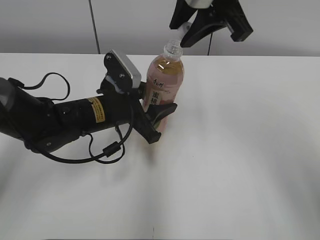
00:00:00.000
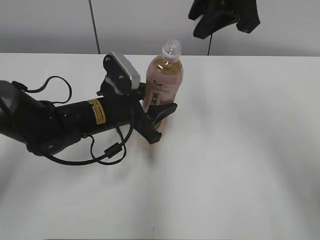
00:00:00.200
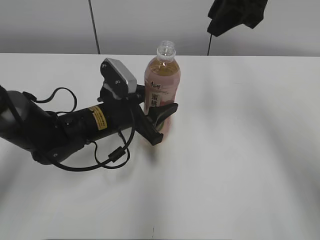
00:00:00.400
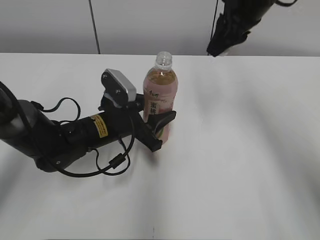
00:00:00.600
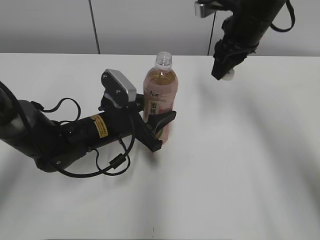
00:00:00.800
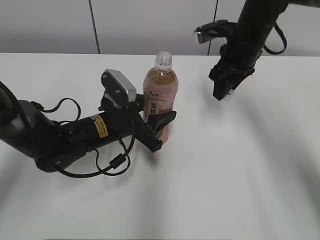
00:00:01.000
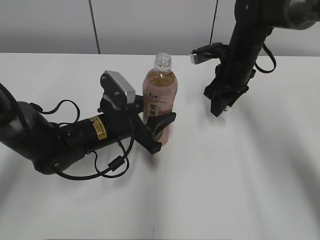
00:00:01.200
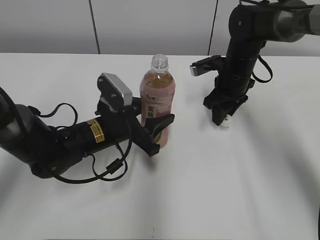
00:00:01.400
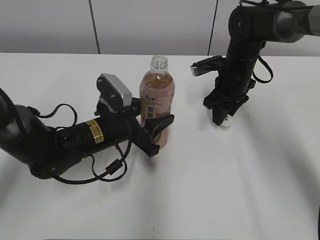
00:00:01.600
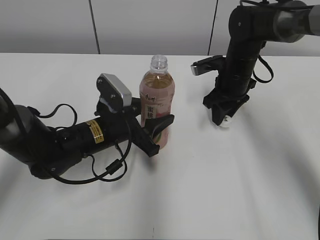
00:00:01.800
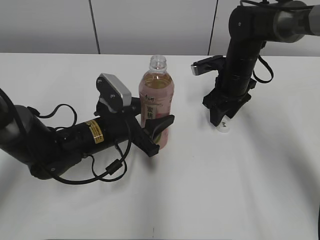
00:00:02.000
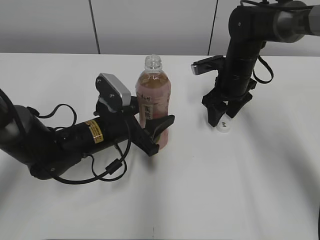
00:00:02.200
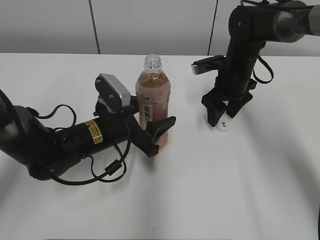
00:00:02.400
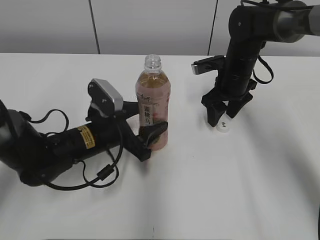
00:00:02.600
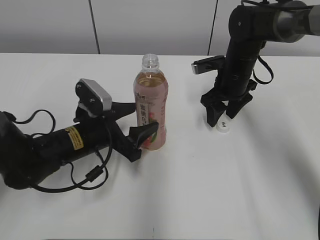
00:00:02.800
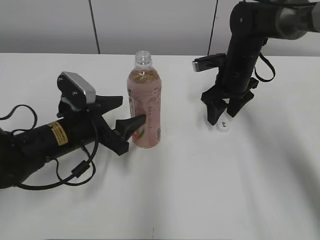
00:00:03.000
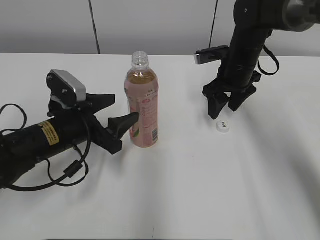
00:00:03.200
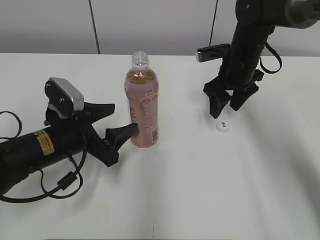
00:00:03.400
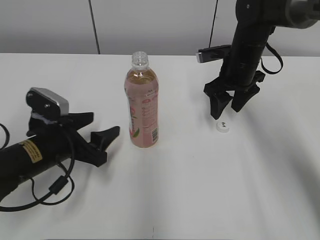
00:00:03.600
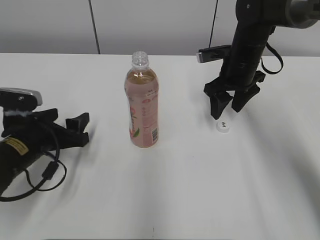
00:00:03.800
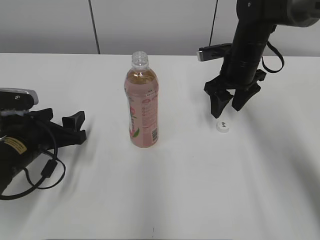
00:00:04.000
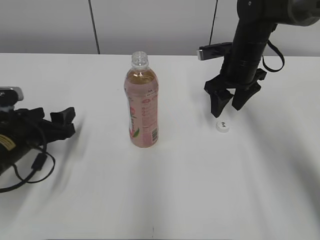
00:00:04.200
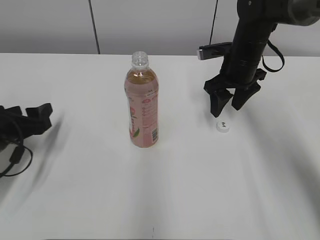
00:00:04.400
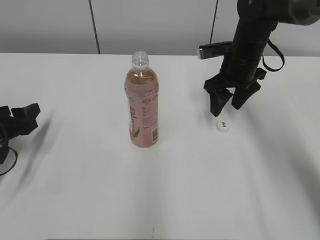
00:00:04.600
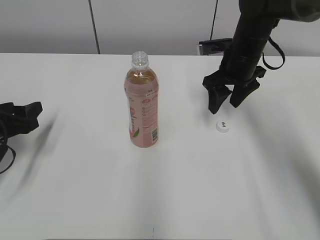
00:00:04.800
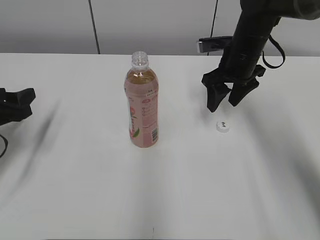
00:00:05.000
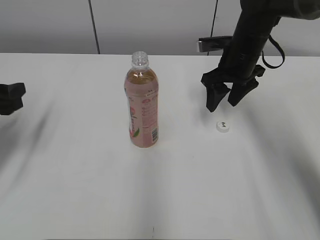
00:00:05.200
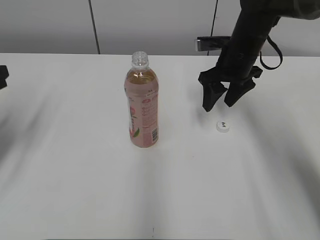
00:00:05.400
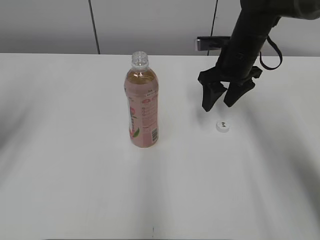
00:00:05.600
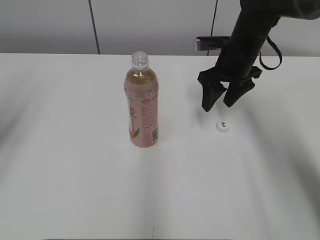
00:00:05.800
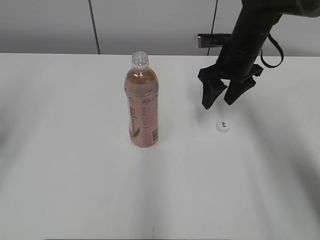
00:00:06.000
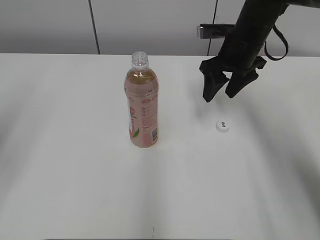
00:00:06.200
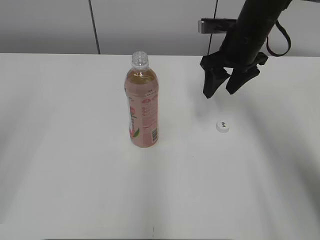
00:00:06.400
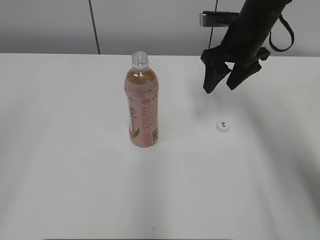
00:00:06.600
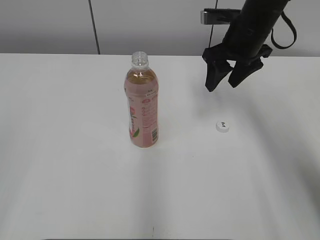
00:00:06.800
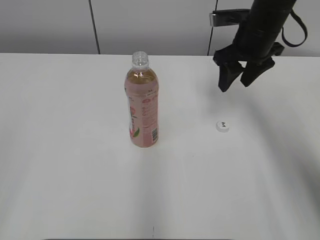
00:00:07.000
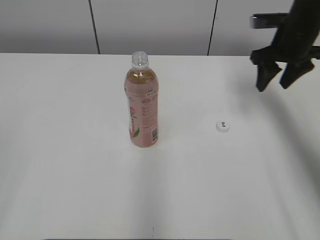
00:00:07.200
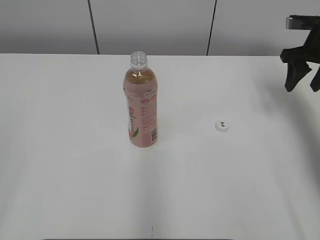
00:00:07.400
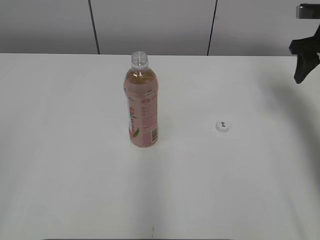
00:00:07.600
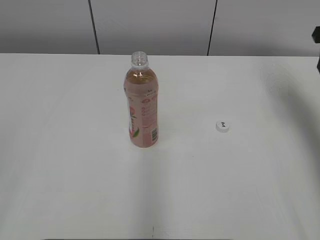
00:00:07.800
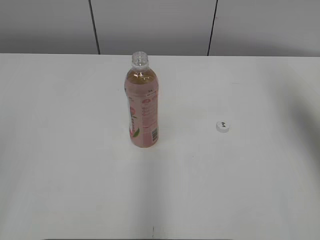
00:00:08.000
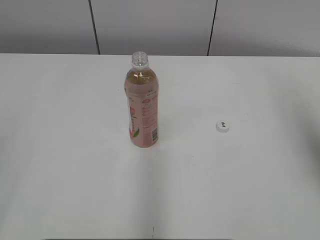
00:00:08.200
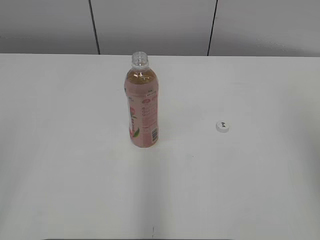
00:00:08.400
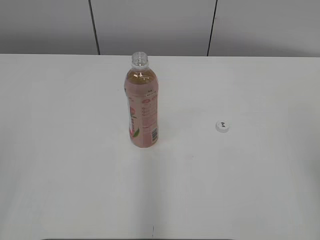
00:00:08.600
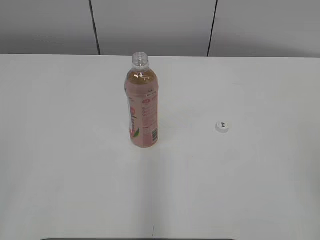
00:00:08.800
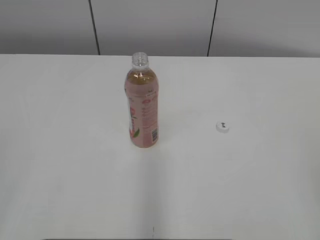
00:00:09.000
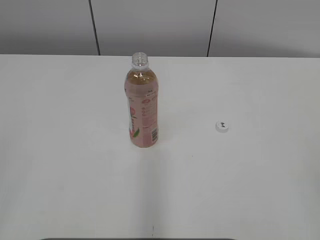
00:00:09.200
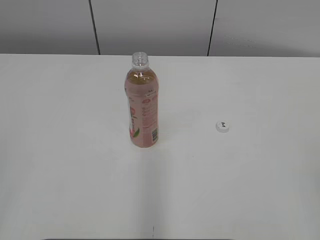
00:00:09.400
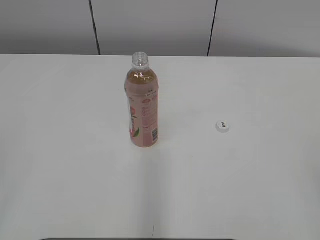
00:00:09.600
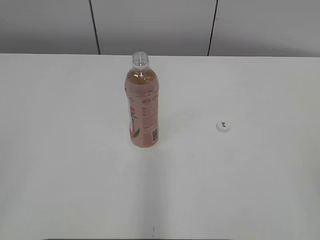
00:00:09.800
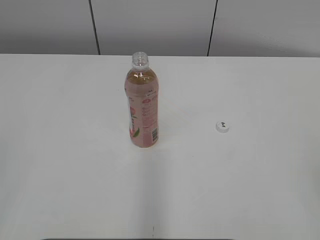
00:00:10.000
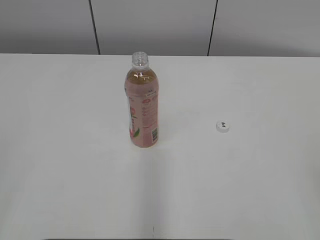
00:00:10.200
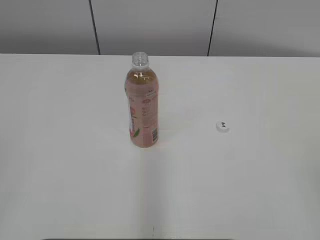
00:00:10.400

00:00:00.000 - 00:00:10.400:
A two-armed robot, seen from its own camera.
Step, 00:00:00.000 - 00:00:01.800: Place the bottle cap on the right.
Step, 00:00:02.000 - 00:00:03.000: Place the Peach Oolong Tea with the left hand.
00:00:00.000 - 00:00:01.400: The right gripper travels downward and forward by roughly 25 cm.
00:00:01.400 - 00:00:03.000: The right gripper opens. The left gripper travels to the left by some 5 cm, and opens up.
00:00:03.000 - 00:00:04.400: The left gripper goes roughly 15 cm to the left.
00:00:04.400 - 00:00:06.000: The left gripper is displaced upward by approximately 20 cm.
00:00:06.000 - 00:00:07.400: The left gripper heads backward, covering about 20 cm. The right gripper goes some 15 cm to the right.
00:00:07.400 - 00:00:09.000: The right gripper heads backward, covering roughly 40 cm.

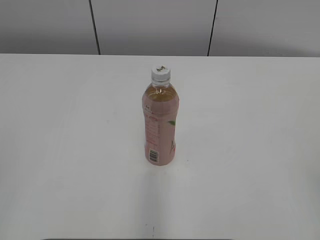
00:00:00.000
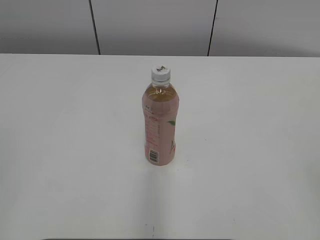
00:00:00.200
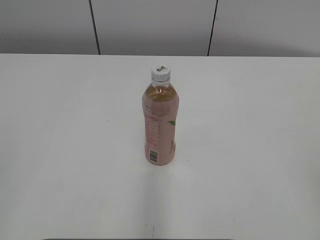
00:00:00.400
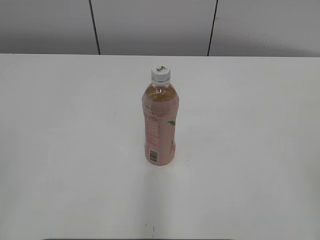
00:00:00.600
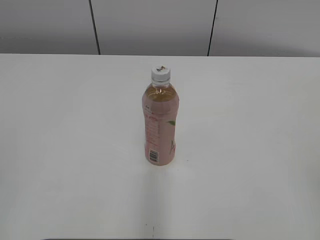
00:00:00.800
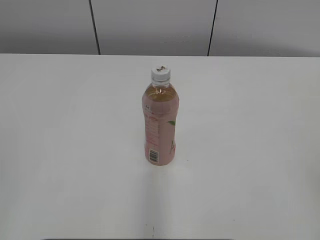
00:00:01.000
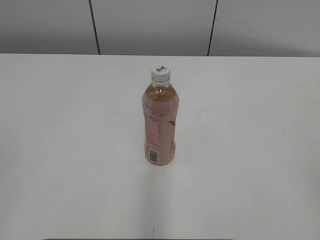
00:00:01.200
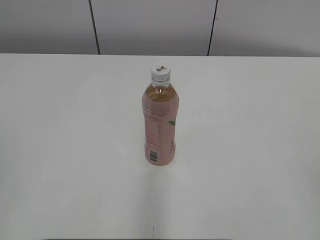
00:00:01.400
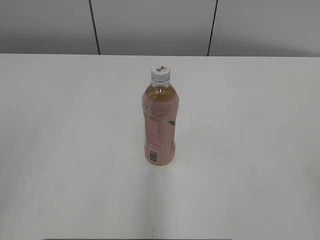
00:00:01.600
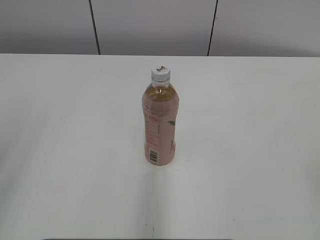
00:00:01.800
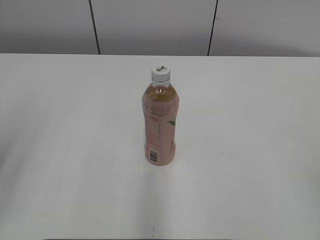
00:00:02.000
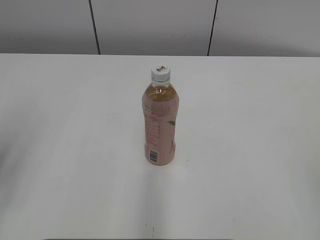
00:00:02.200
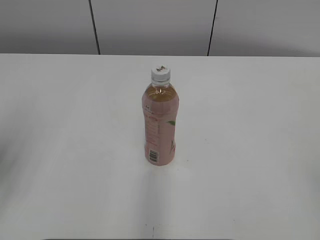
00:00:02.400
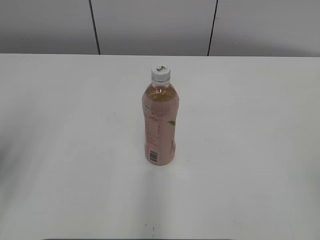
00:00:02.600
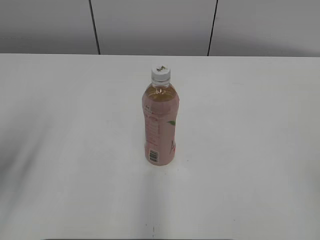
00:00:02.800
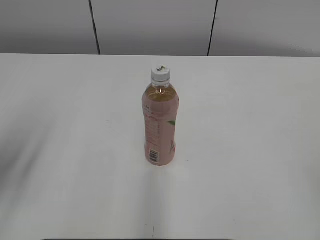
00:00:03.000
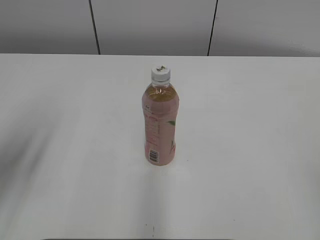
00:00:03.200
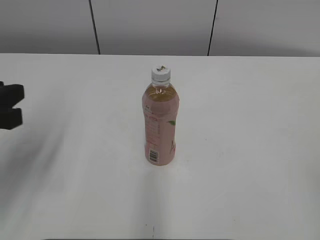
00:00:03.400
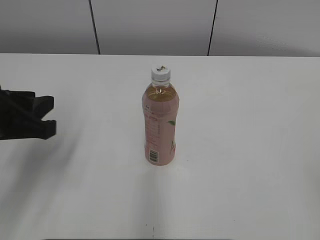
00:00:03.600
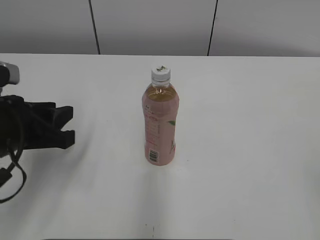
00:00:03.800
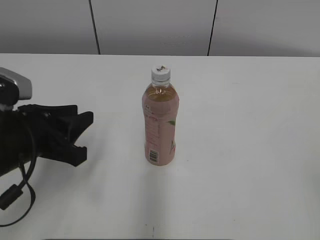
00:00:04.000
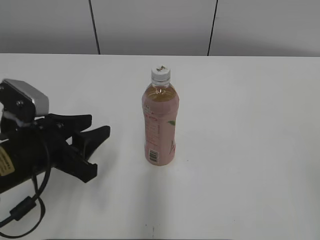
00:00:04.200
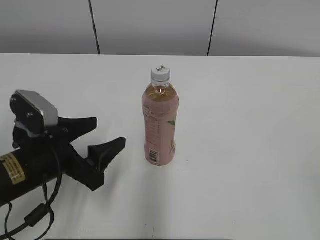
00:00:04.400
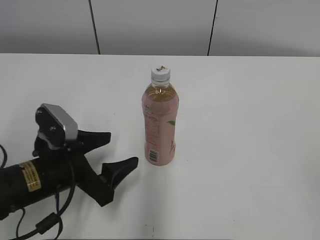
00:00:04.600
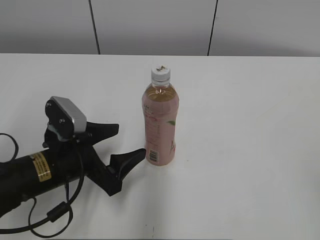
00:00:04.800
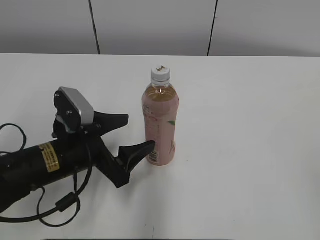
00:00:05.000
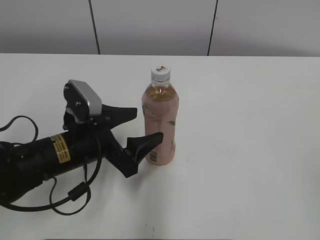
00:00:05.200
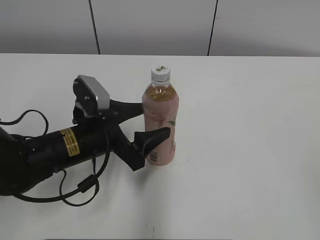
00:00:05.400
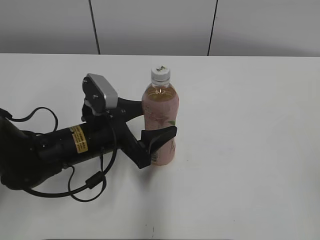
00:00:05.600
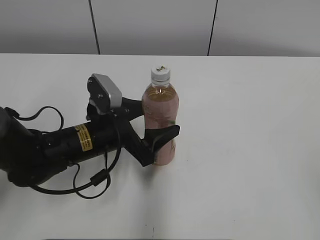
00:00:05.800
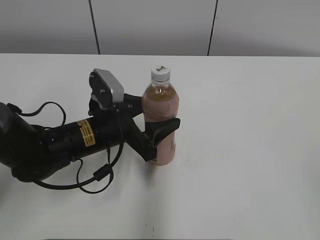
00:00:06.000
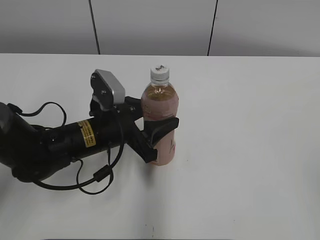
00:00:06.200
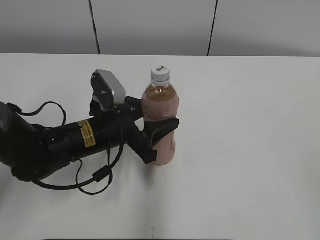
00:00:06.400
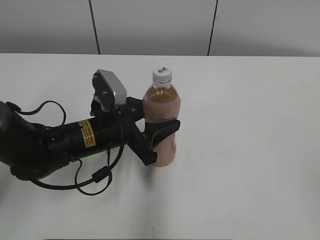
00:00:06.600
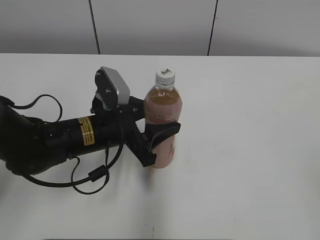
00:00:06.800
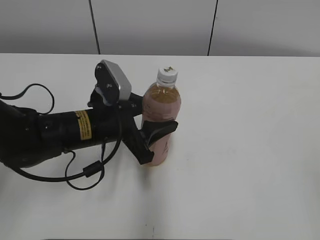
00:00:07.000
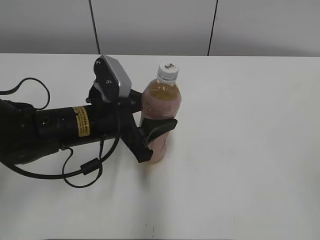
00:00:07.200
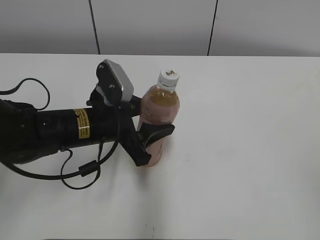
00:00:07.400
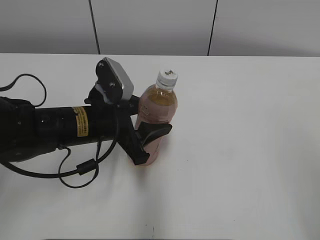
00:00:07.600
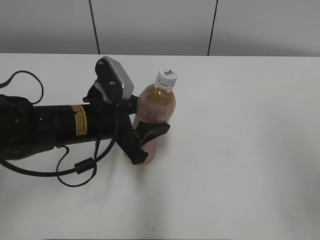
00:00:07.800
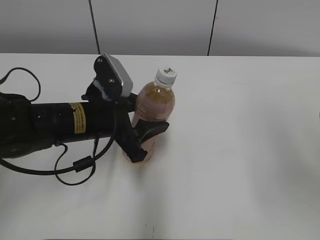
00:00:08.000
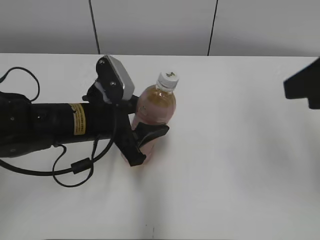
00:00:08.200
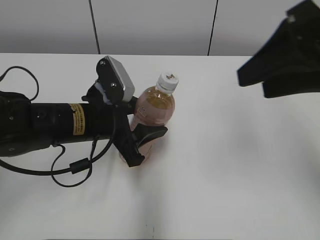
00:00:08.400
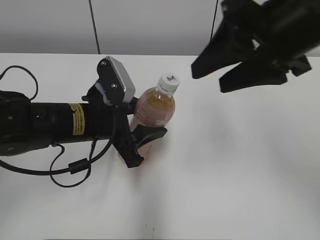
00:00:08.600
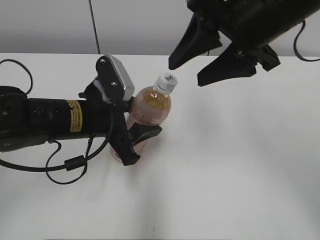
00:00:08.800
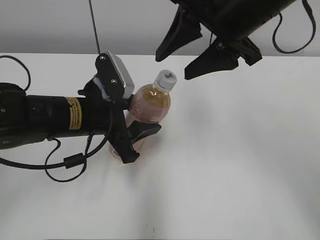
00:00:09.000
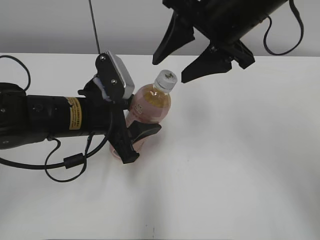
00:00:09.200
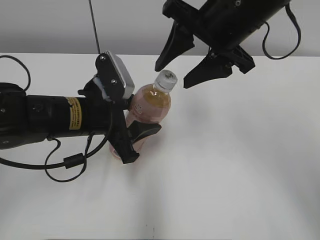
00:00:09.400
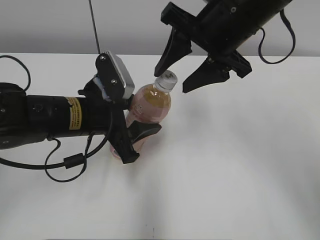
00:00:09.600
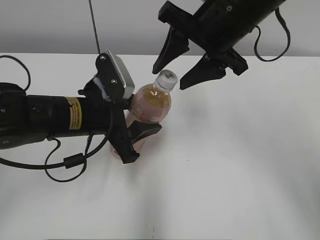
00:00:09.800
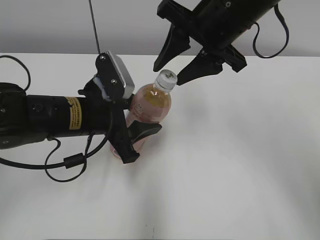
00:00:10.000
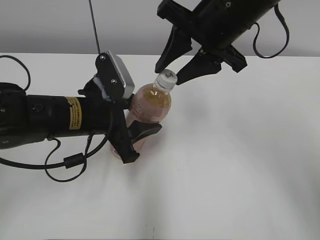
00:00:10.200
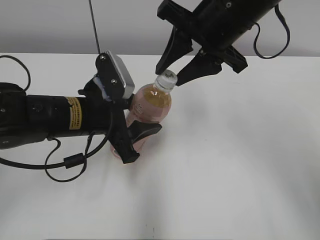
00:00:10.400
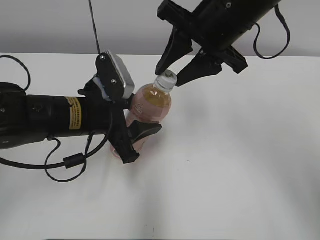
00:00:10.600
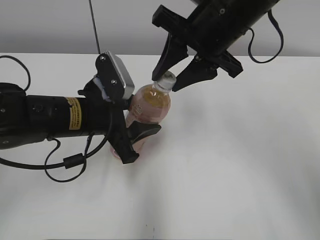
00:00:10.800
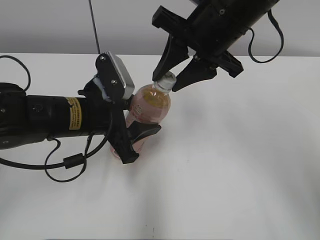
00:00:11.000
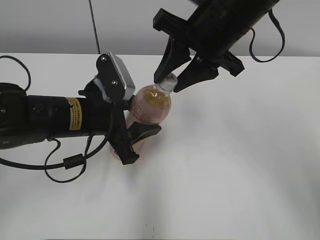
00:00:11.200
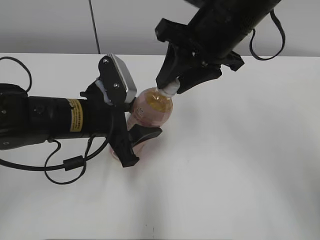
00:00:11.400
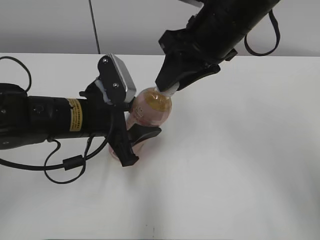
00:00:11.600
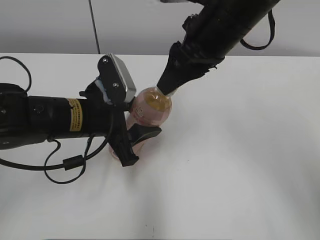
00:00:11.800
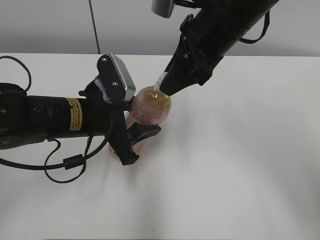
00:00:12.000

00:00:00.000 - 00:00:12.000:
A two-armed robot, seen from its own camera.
Step, 00:00:00.000 - 00:00:06.000: Grab the Peach Oolong Tea with the left hand.
00:00:01.600 - 00:00:03.000: The left gripper shifts roughly 15 cm forward and downward.
00:00:03.000 - 00:00:04.400: The left gripper shifts about 15 cm downward and to the right, and opens its fingers.
00:00:04.400 - 00:00:06.000: The left gripper heads forward and to the right, covering about 10 cm.
00:00:06.000 - 00:00:07.600: The grippers move only a little.
00:00:07.600 - 00:00:09.000: The right gripper moves forward and to the left, some 30 cm.
00:00:09.000 - 00:00:10.400: The right gripper closes.
